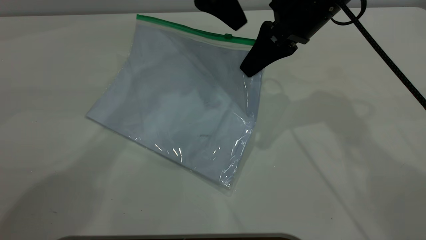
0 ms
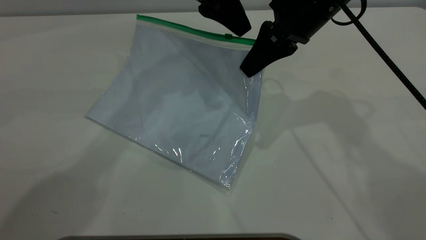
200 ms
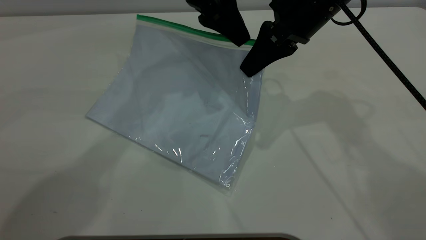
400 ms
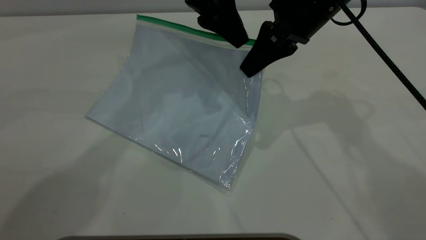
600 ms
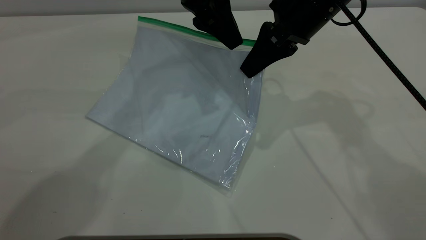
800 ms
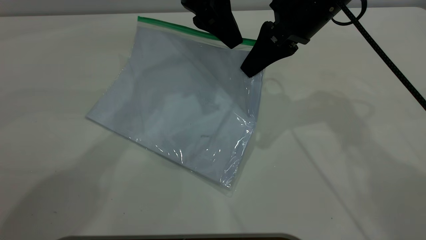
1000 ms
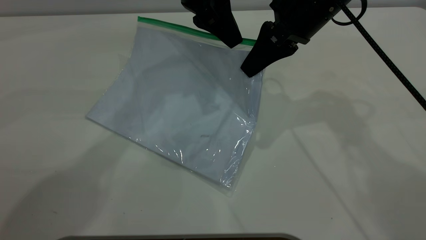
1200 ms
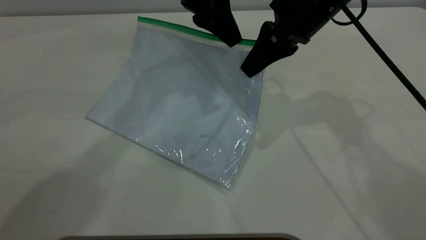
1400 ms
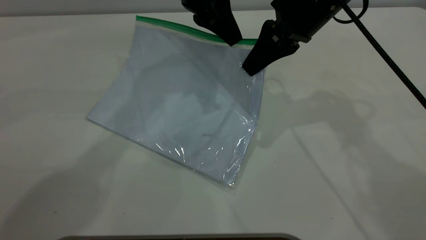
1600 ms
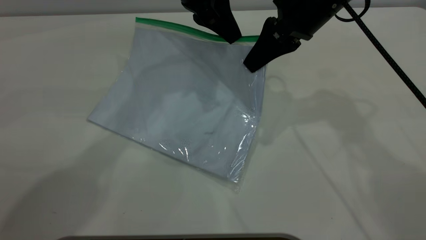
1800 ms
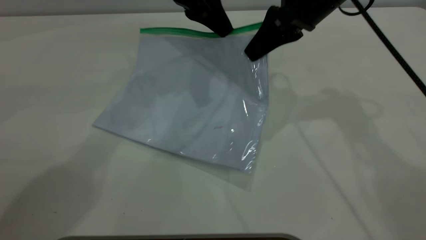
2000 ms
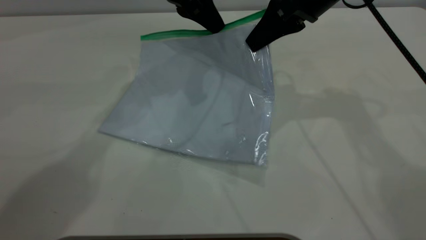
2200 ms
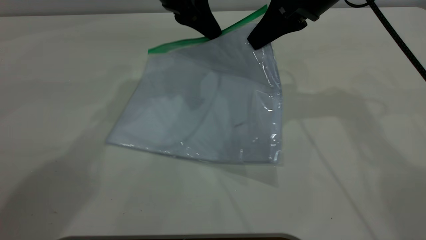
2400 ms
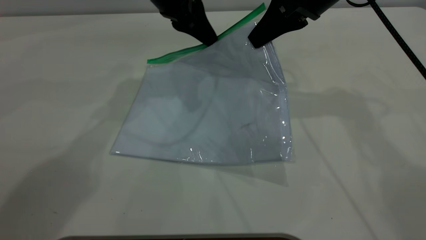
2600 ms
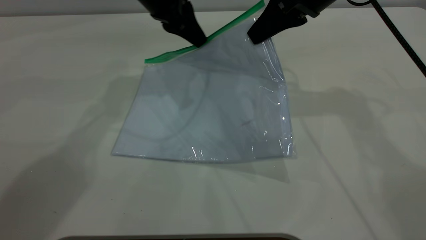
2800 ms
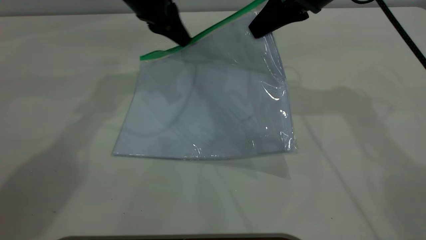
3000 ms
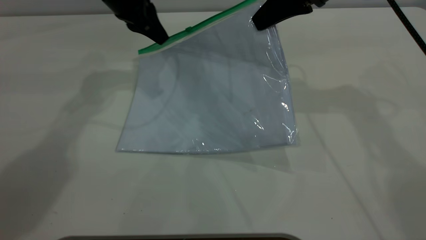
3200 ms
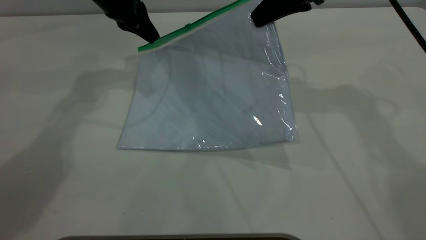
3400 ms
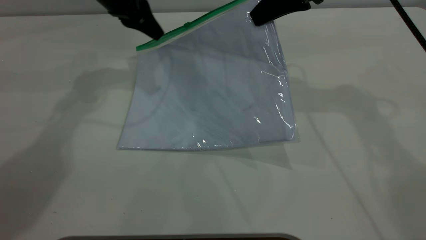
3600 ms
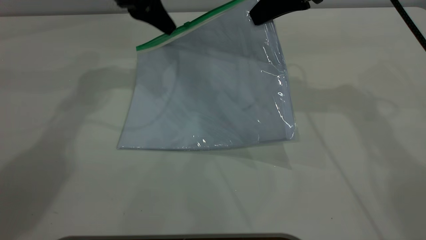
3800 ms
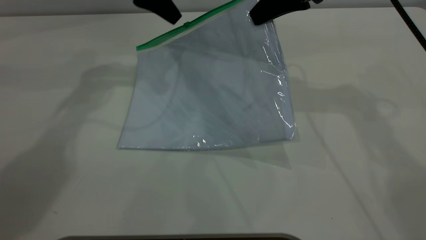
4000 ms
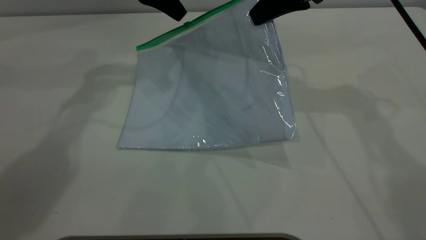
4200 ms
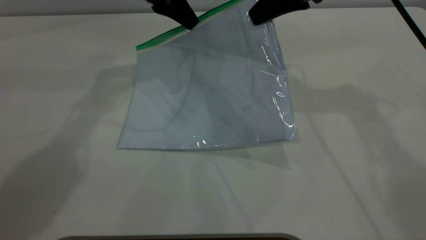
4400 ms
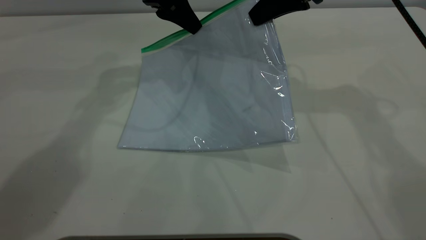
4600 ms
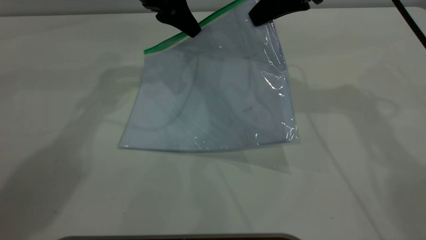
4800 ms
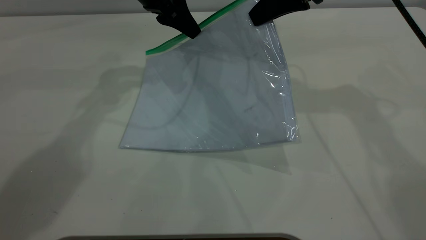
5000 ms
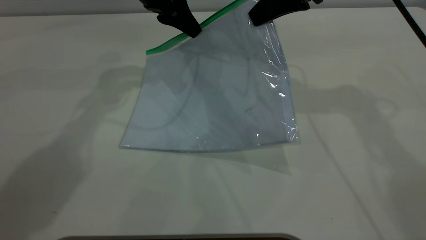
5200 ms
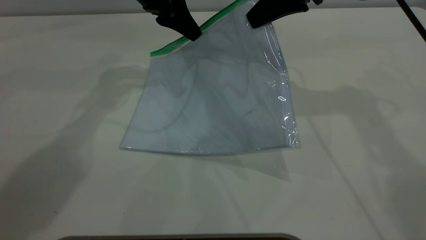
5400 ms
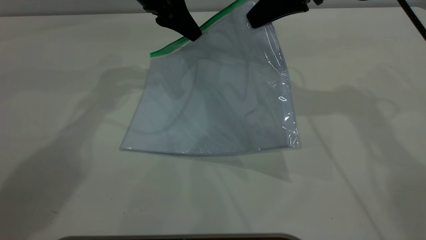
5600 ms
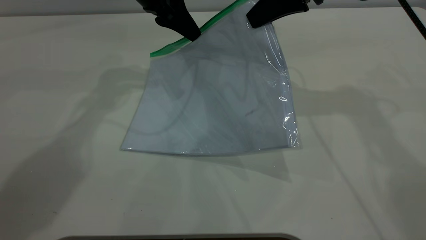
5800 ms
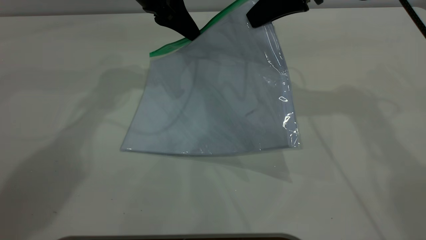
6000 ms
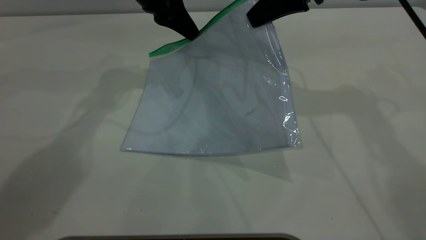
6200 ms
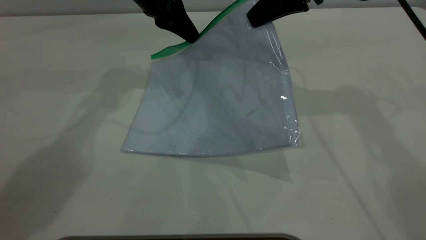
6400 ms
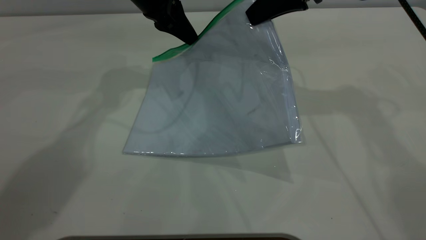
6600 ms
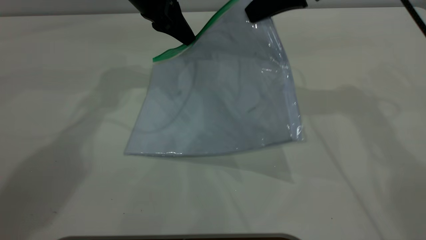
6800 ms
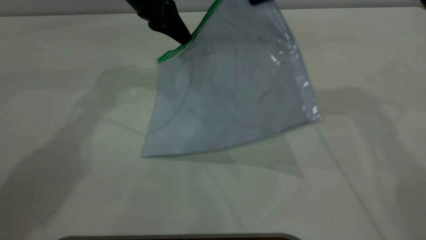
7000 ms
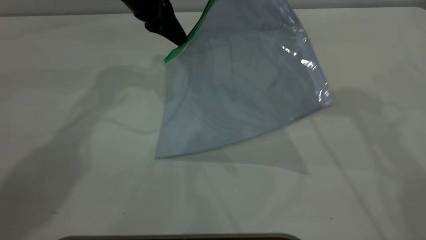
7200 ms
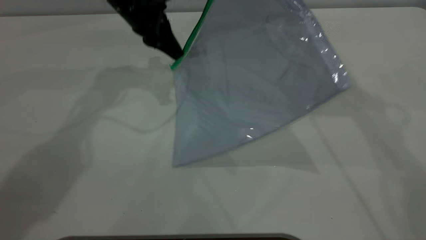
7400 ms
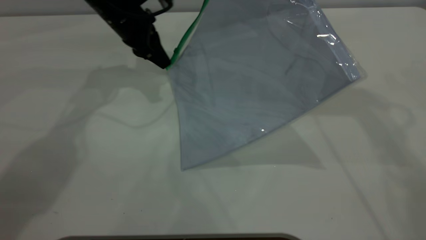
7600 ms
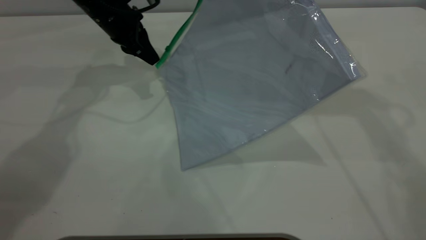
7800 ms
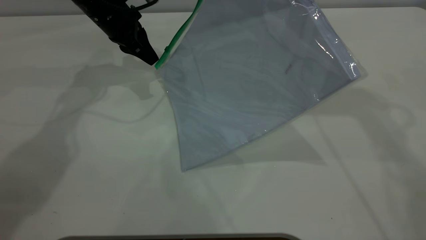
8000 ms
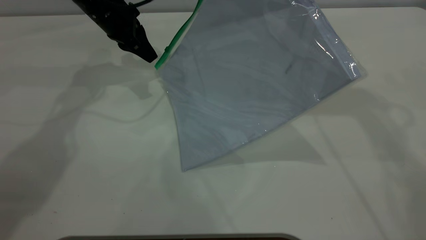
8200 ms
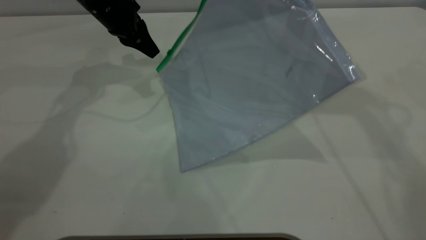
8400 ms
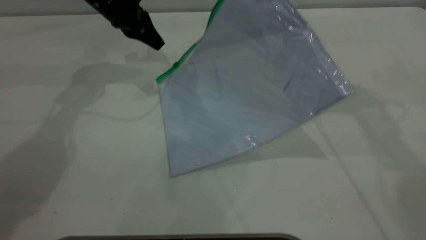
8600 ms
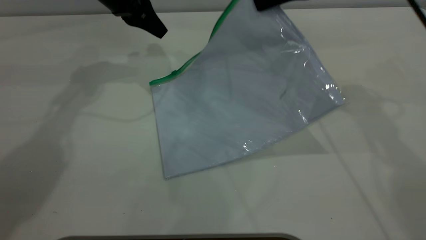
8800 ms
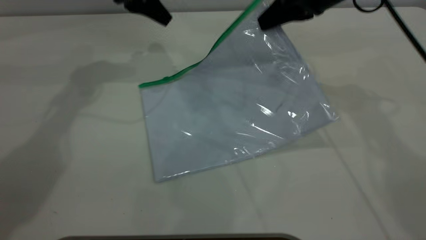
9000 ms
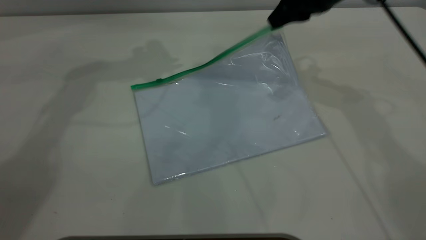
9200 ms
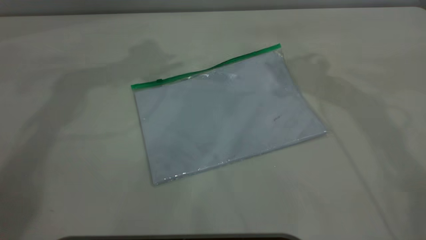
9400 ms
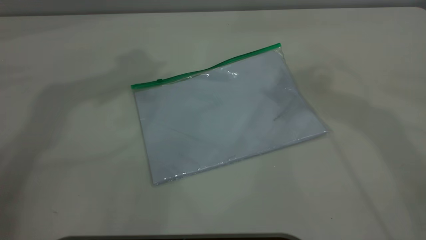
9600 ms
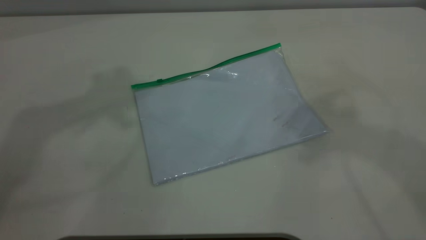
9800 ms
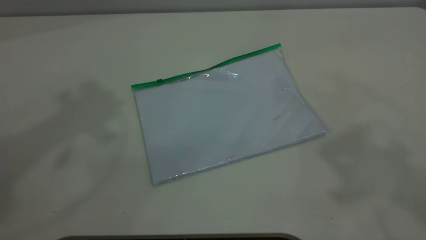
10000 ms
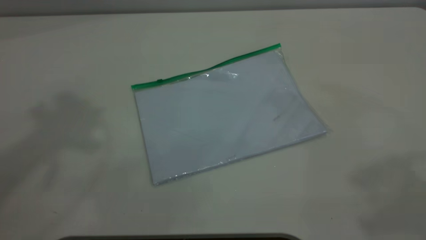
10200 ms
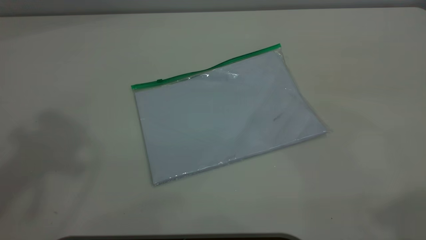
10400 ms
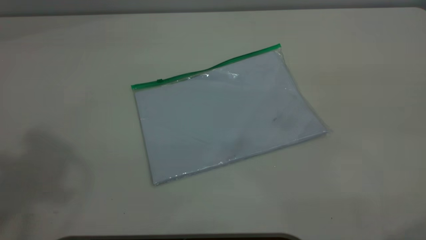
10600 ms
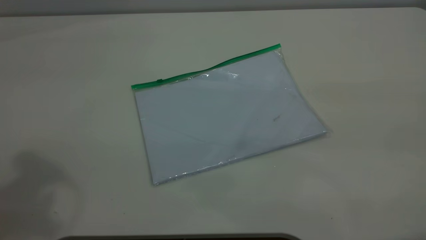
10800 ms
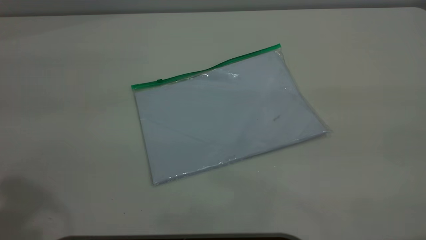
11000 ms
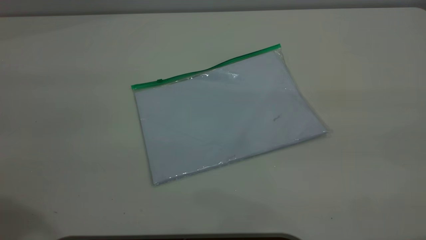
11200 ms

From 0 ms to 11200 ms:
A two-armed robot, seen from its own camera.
Step, from 0 ms to 8600 ms: Pulling up the zipper on the transparent plastic bag with the left gripper to close it.
Step, from 8800 ms to 9200 ms: Place the transparent plastic bag.
From 0 ms to 1600 ms: The left gripper closes its fingers.
From 1600 ms to 3200 ms: The right gripper moves about 5 cm. The left gripper moves to the left and forward, roughly 15 cm.
From 3200 ms to 4800 ms: The left gripper shifts by some 5 cm, and opens.
From 4800 ms to 6400 ms: The left gripper closes.
From 6400 ms to 8000 ms: The left gripper travels to the left and downward by some 10 cm; the right gripper is displaced upward by about 5 cm.
From 8000 ms to 9600 ms: The left gripper shifts about 35 cm upward, and opens up. The right gripper moves upward, roughly 10 cm, and opens.

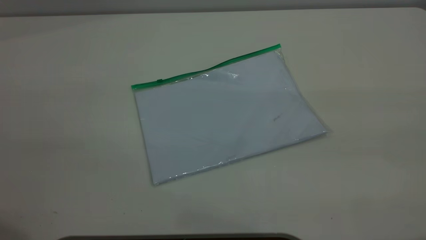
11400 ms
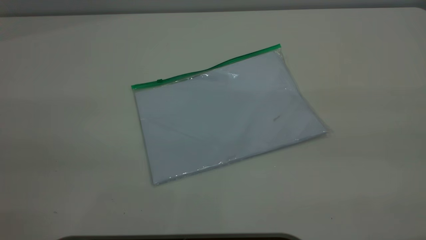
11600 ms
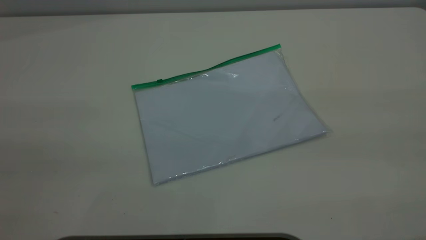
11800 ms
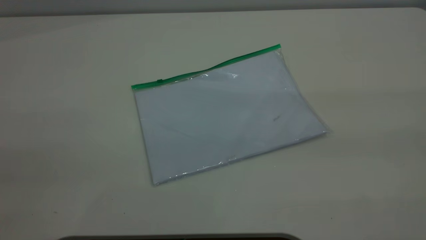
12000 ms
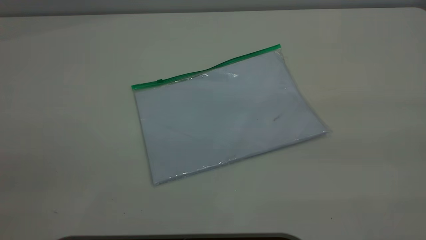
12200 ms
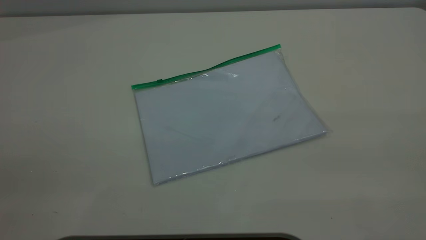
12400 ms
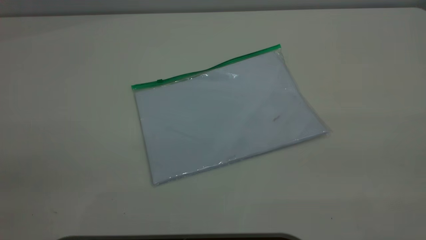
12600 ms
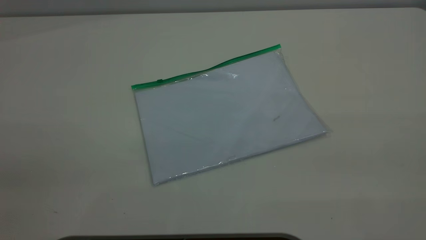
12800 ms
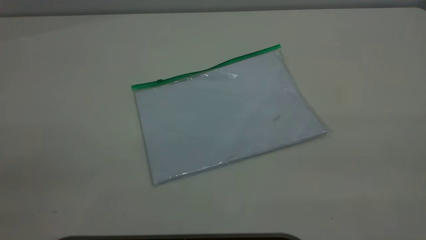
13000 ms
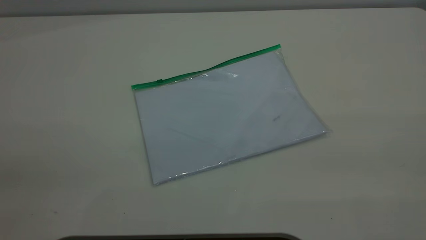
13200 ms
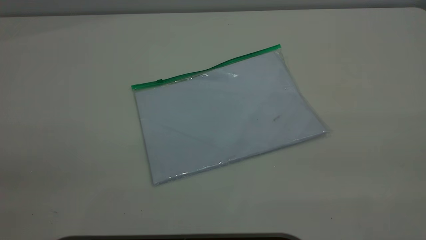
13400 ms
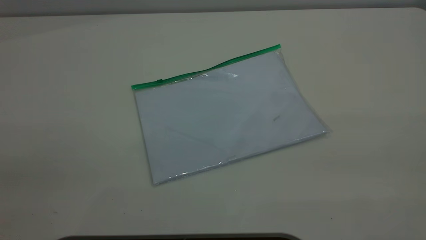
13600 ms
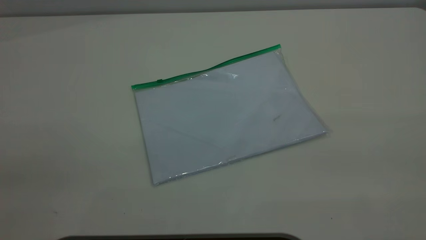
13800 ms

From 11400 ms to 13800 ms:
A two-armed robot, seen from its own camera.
From 12600 ms to 13800 ms: Neither gripper changes place.
